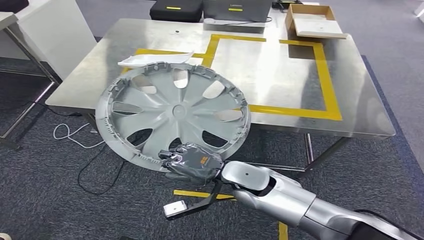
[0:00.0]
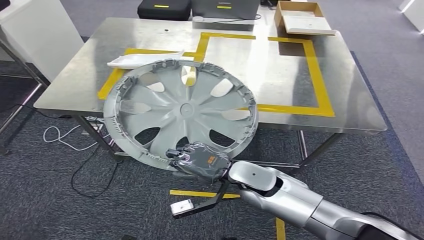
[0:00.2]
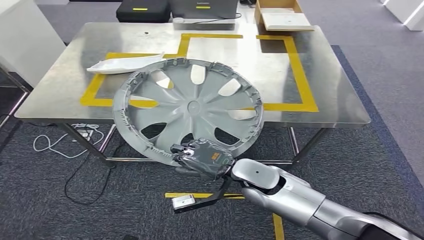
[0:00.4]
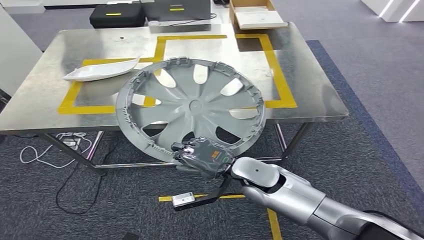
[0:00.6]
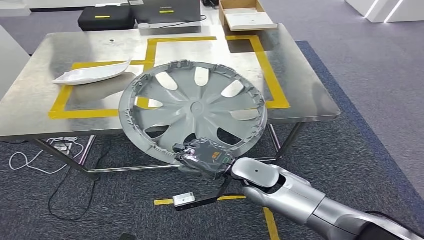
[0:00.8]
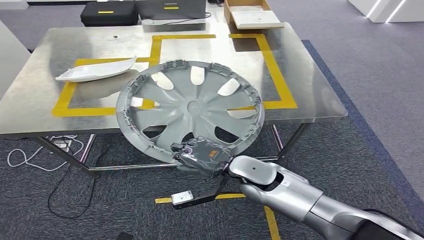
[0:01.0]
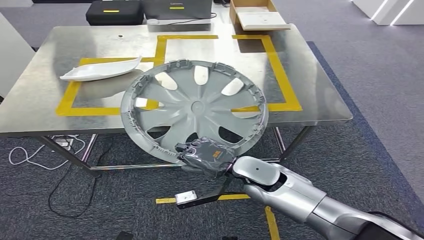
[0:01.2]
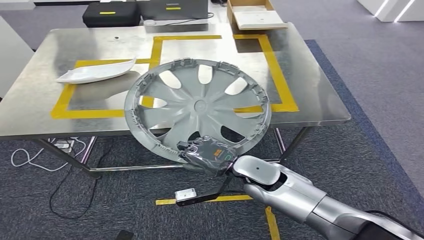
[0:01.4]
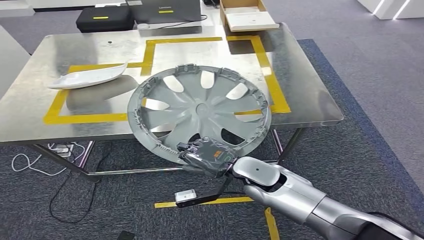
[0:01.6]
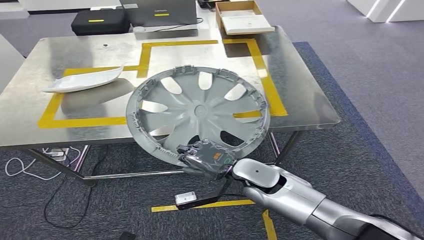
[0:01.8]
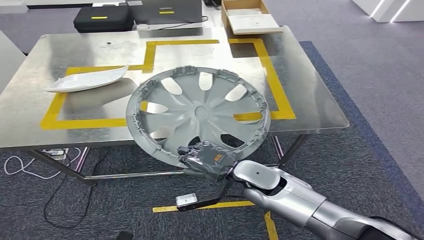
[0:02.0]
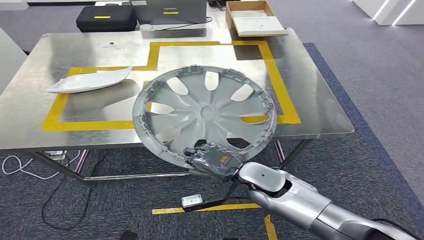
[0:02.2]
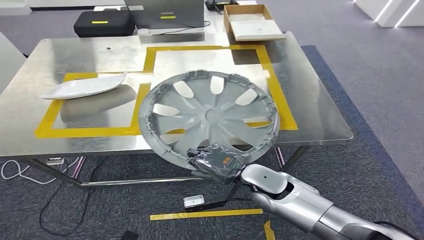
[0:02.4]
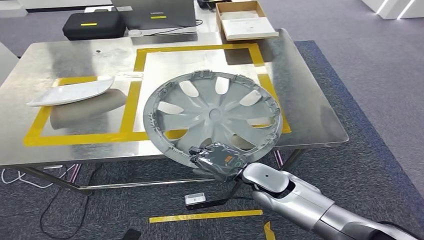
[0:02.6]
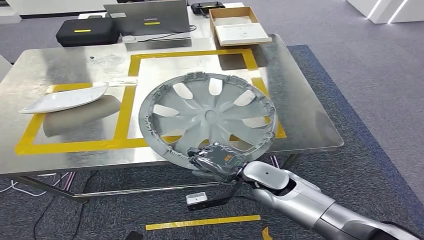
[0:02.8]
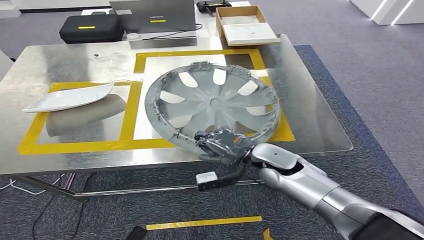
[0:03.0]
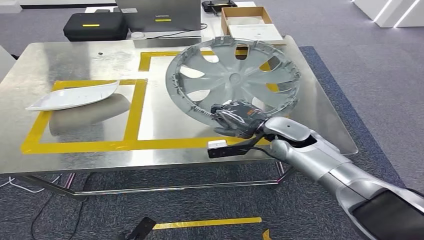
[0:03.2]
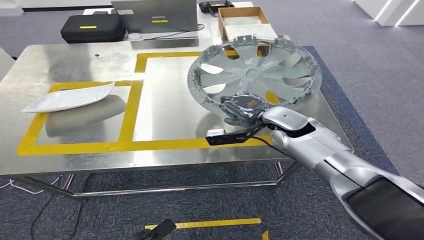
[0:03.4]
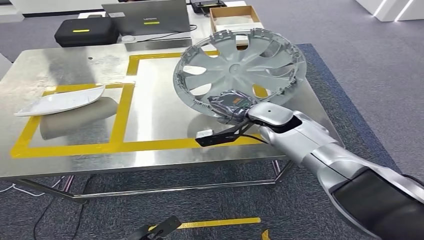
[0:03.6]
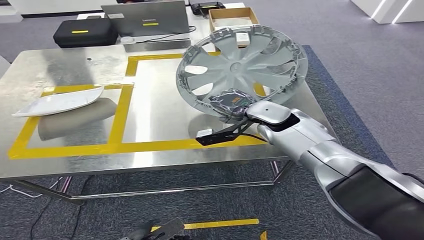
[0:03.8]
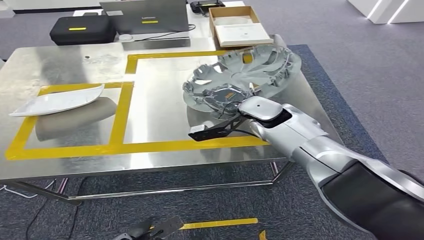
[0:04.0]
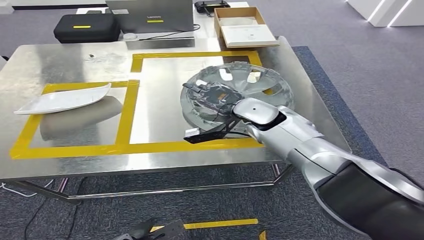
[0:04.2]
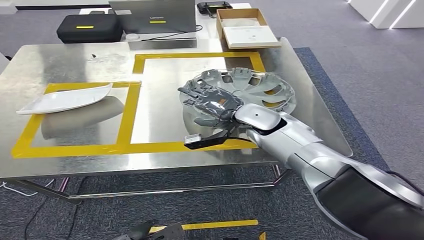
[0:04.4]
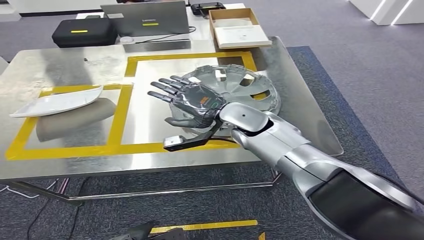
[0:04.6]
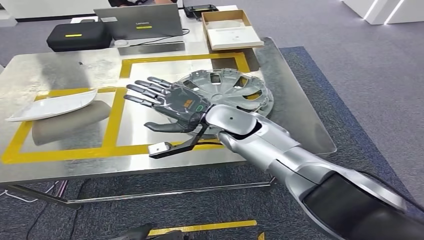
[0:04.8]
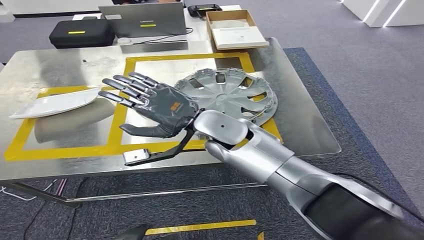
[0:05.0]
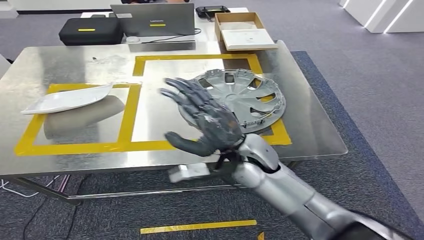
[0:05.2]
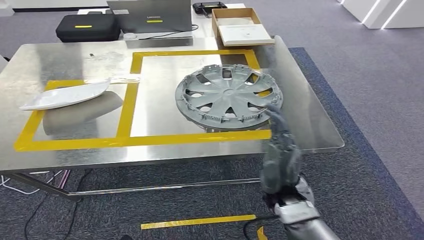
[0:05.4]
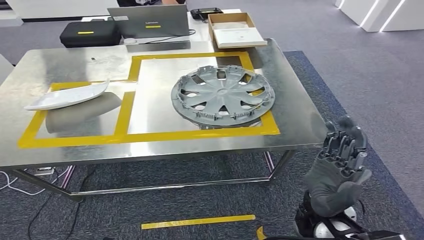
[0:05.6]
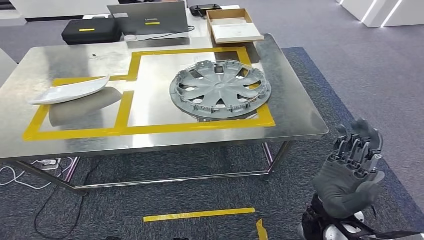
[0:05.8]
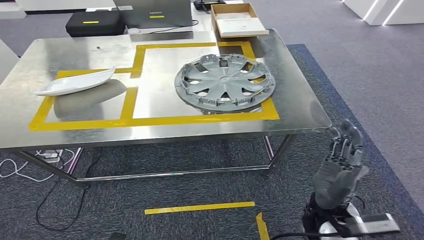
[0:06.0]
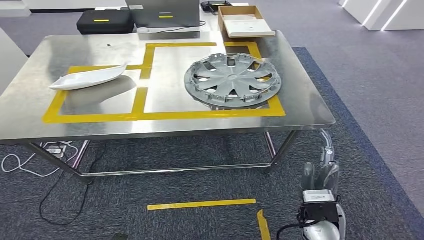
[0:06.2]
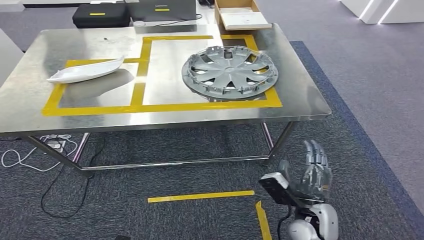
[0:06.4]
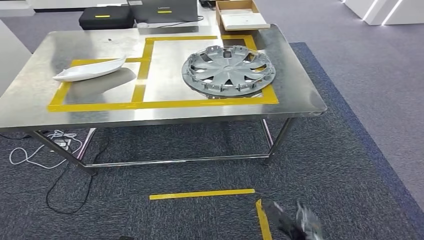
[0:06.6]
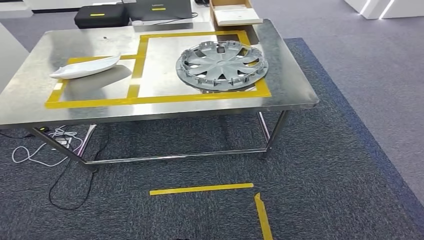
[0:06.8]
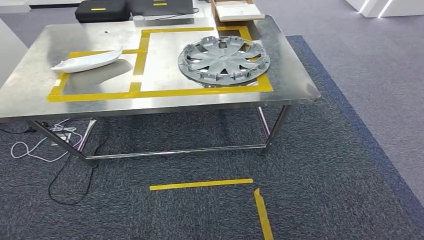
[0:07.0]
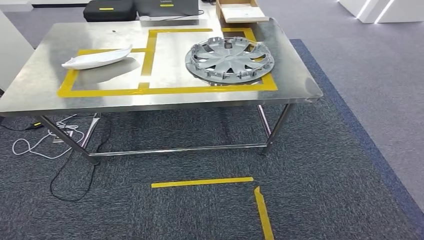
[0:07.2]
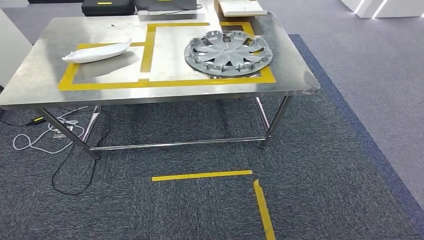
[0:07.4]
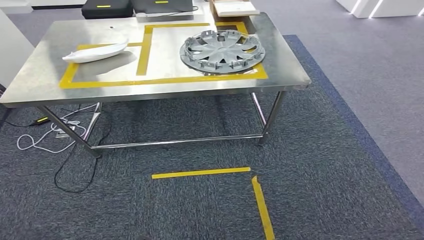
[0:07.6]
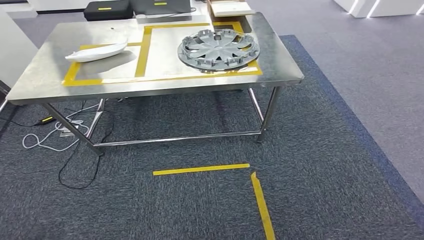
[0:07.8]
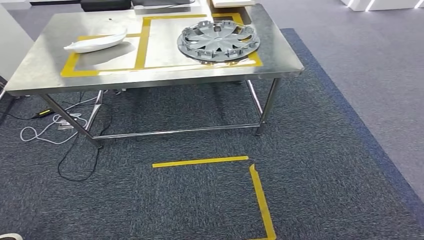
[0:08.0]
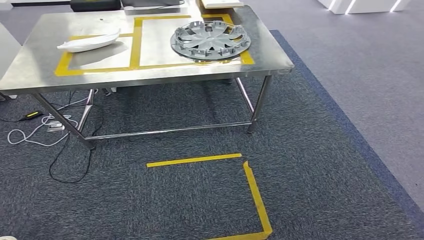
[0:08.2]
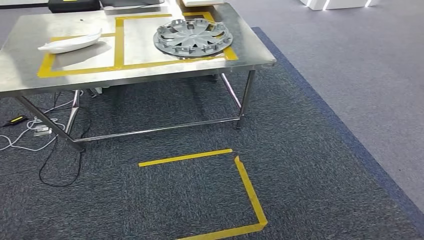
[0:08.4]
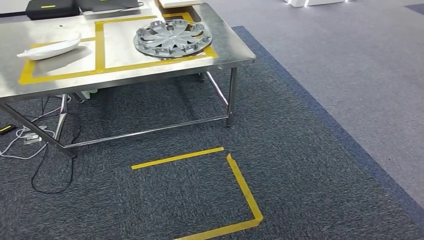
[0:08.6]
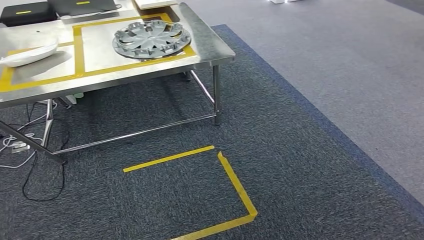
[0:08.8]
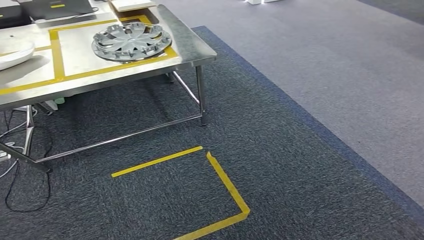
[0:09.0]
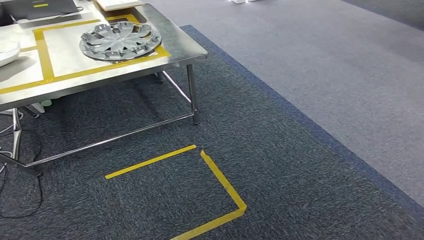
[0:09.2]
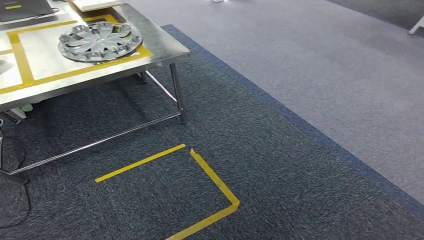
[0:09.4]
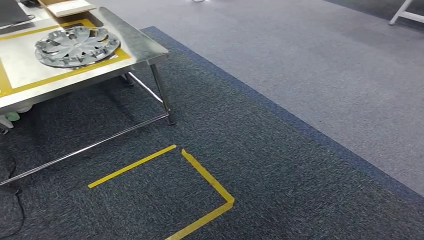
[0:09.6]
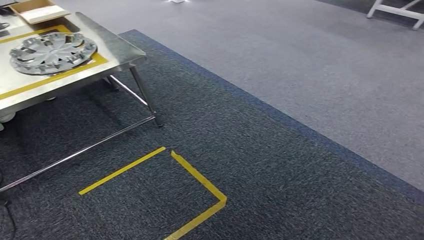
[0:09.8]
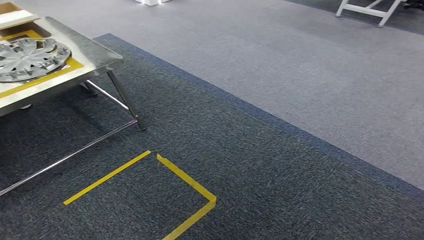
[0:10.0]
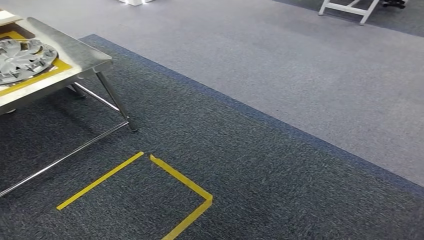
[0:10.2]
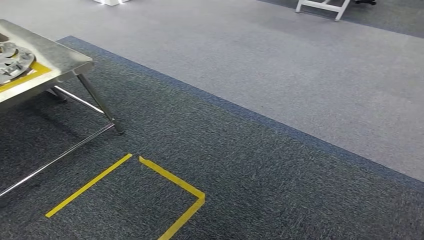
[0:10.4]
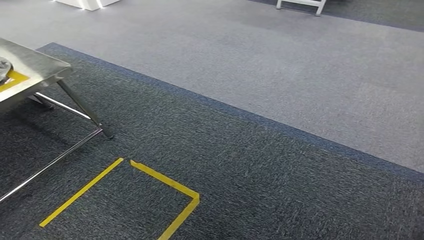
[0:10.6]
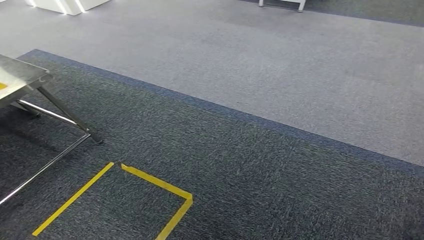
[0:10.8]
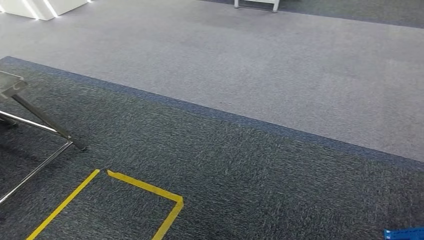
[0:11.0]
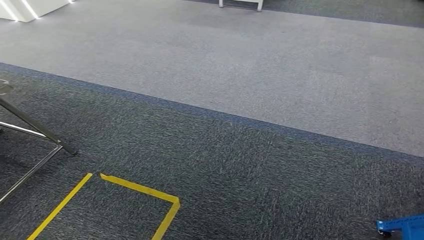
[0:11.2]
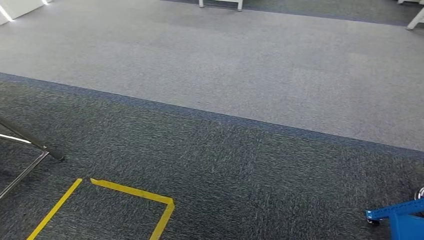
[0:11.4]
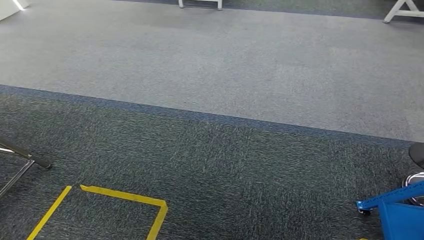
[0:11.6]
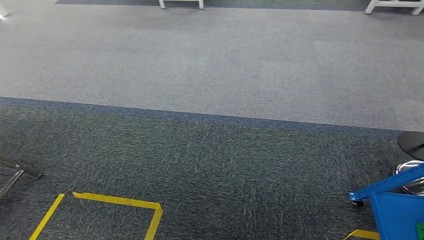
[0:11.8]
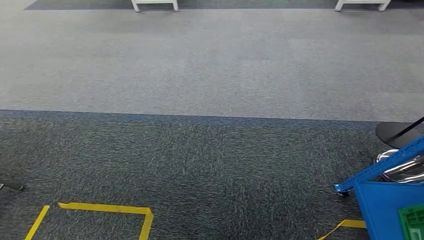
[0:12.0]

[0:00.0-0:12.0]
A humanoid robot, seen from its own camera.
Step, 0:00.0 to 0:05.4: Insert the small component into the corresponding slot on the workbench.

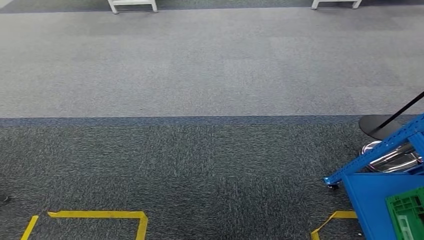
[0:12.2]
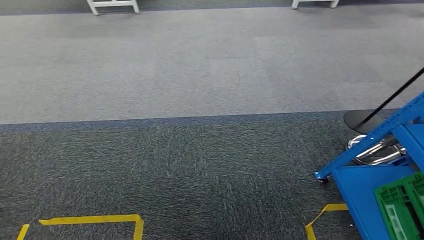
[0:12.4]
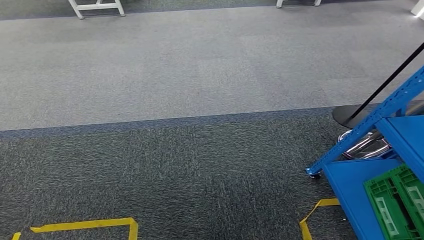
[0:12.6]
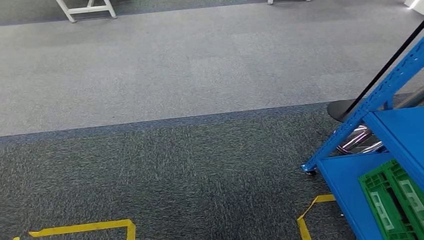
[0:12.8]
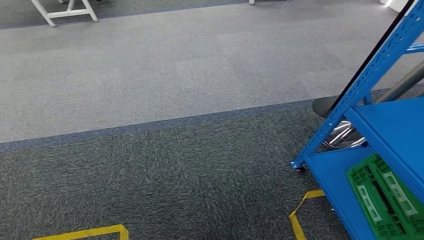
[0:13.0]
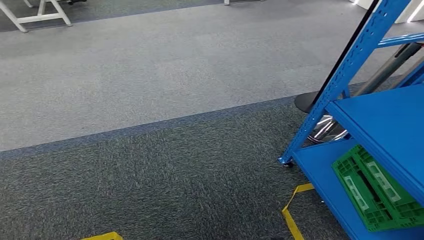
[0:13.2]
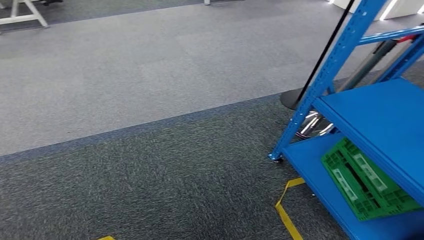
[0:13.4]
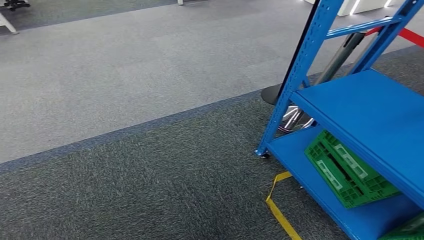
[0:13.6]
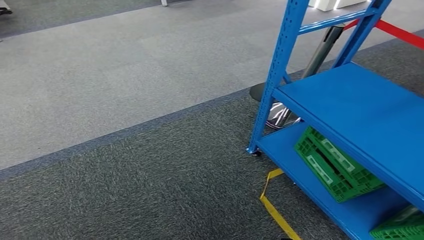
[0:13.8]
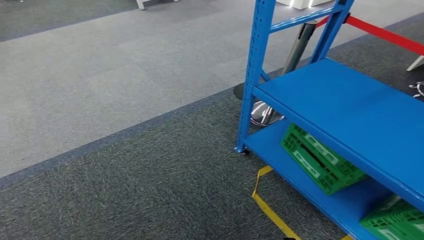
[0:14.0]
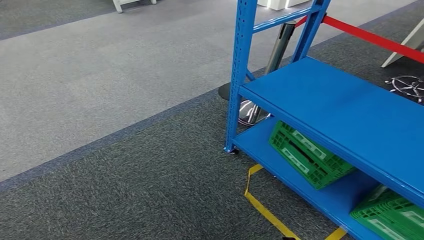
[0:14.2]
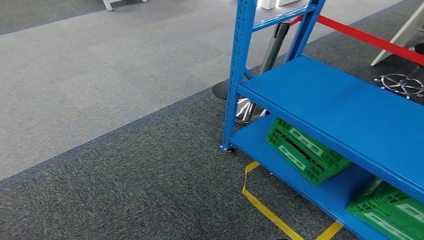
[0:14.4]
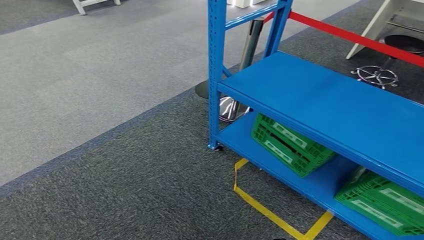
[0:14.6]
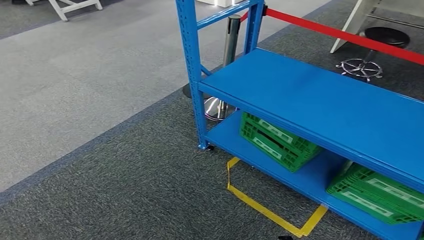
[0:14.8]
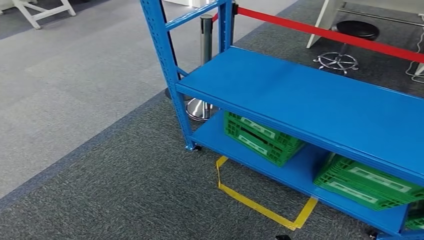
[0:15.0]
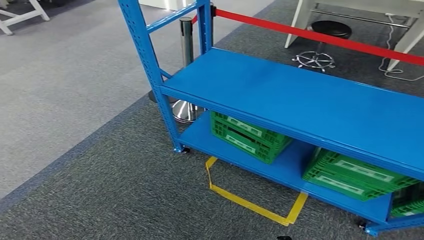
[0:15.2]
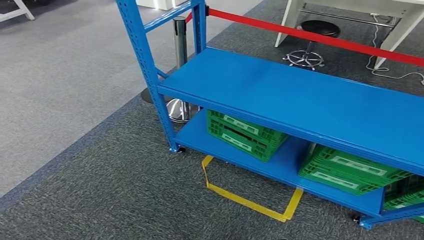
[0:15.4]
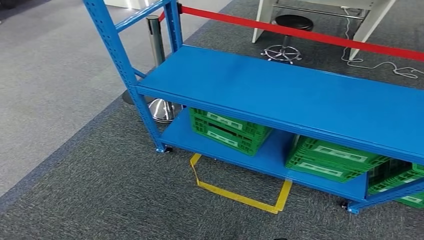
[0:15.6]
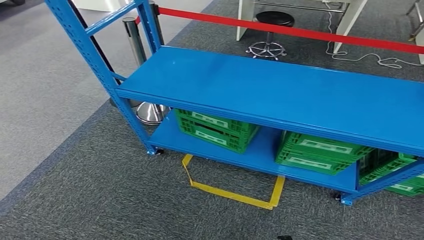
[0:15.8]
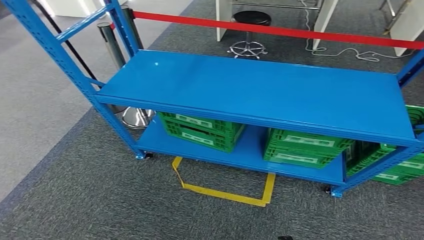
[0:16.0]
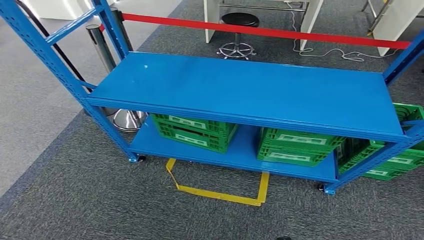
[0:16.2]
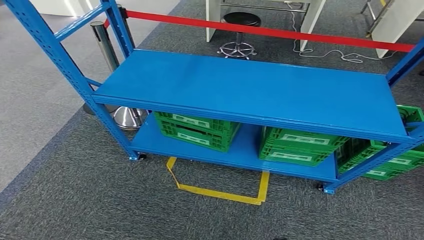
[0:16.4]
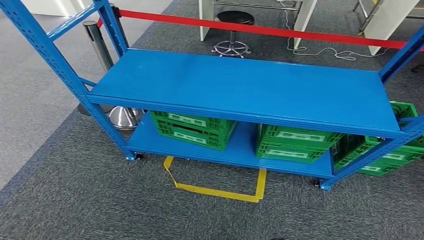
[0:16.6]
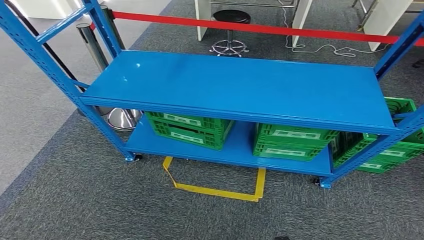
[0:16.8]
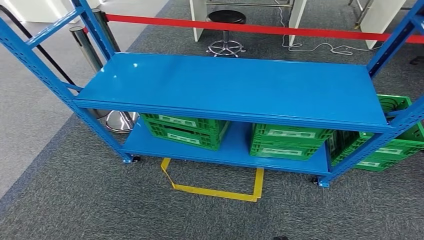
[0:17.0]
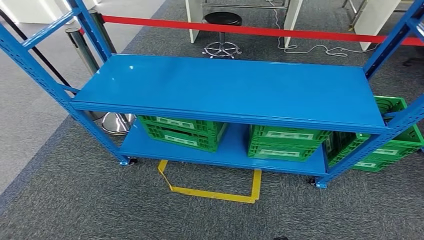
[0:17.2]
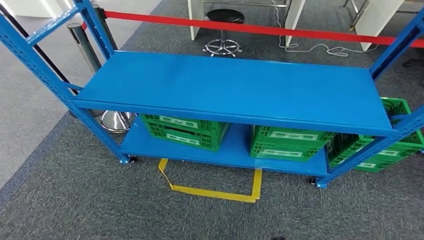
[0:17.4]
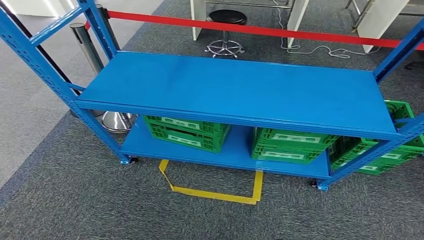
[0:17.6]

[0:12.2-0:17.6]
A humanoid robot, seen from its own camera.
Step, 0:12.2 to 0:17.6: Move to the initial position at the workbench.
